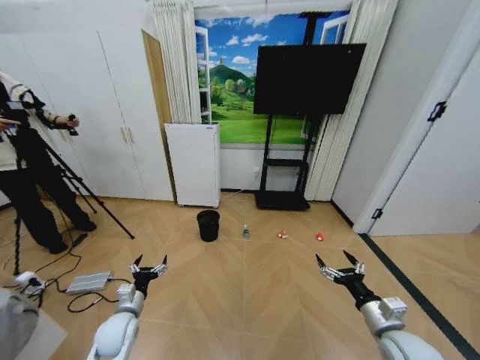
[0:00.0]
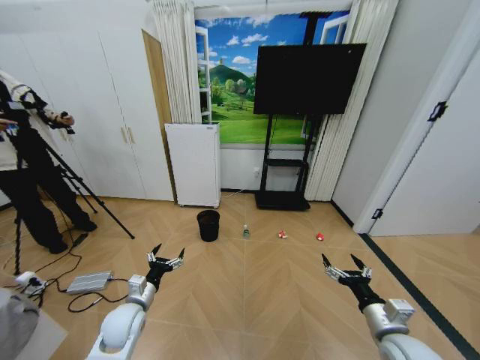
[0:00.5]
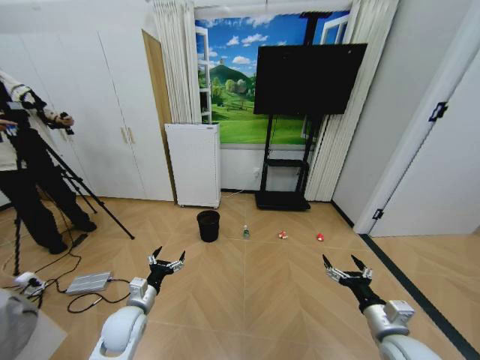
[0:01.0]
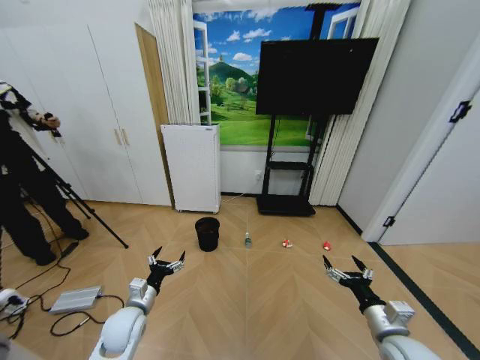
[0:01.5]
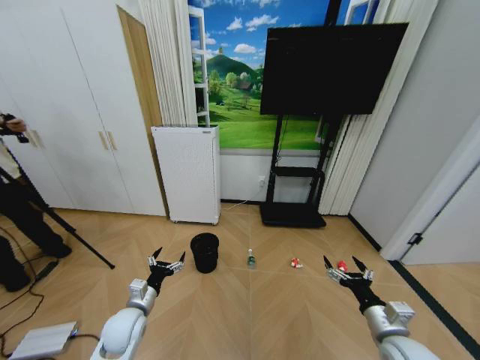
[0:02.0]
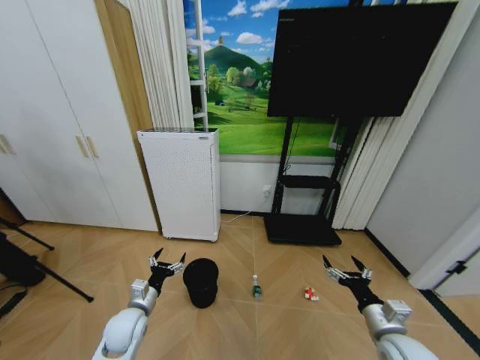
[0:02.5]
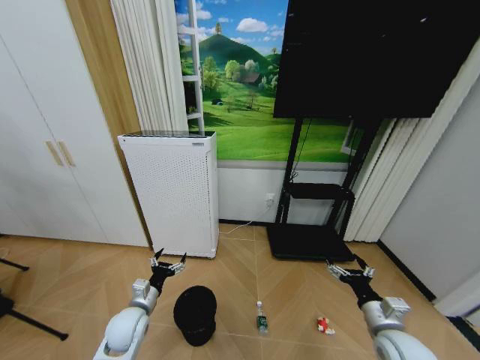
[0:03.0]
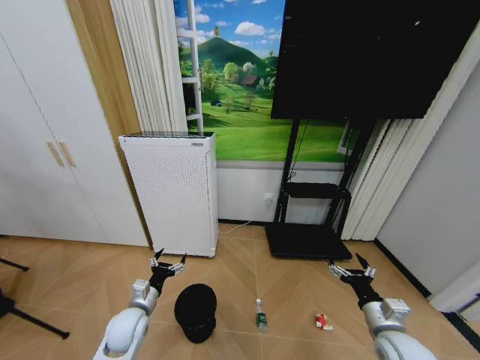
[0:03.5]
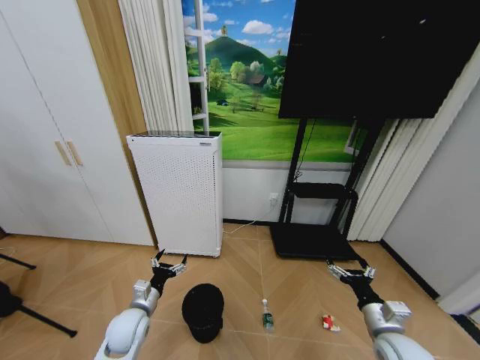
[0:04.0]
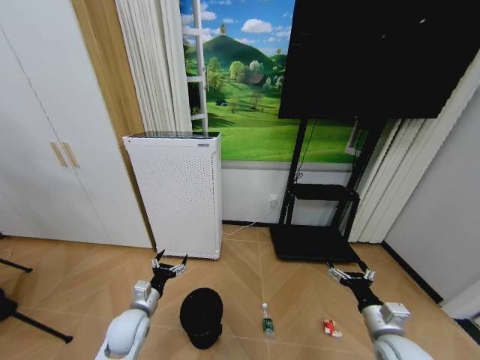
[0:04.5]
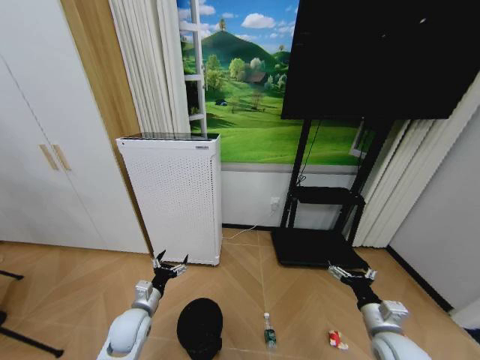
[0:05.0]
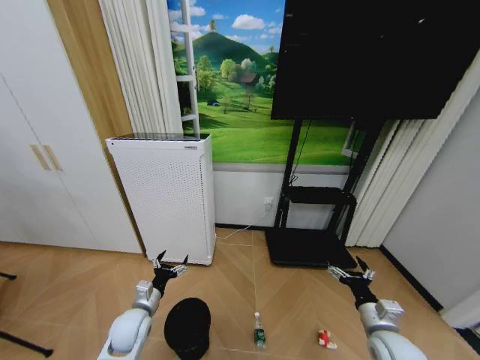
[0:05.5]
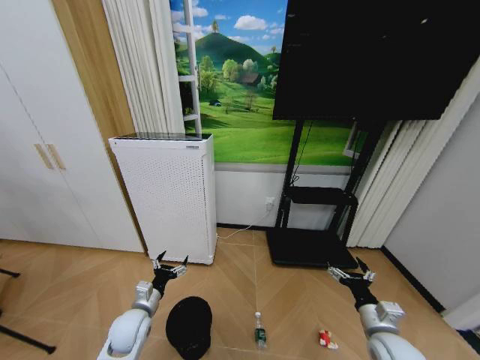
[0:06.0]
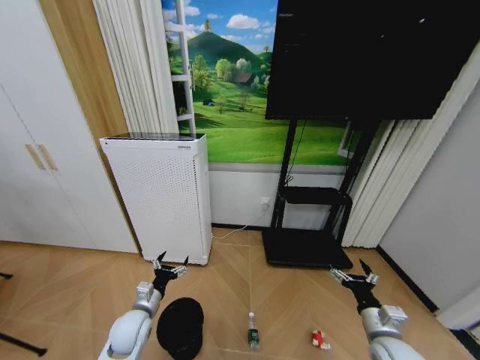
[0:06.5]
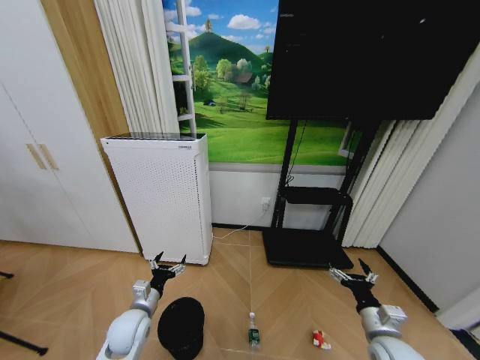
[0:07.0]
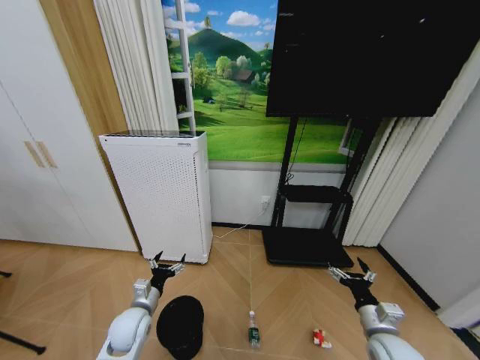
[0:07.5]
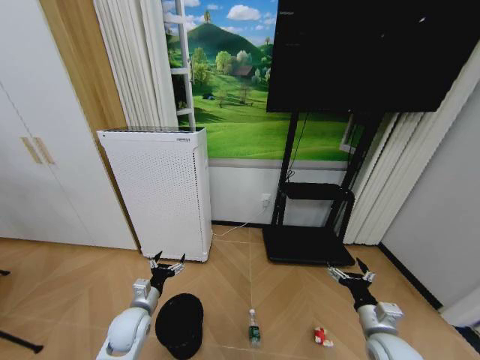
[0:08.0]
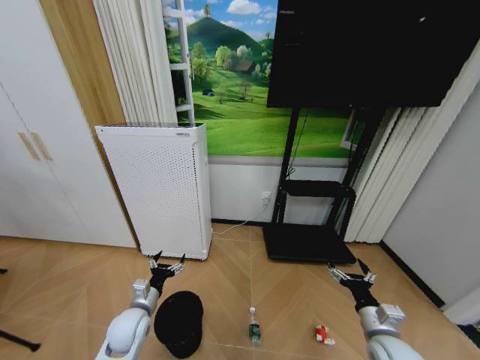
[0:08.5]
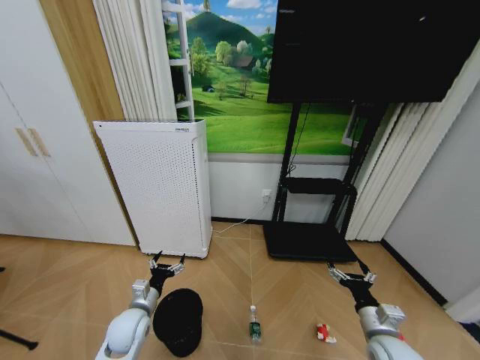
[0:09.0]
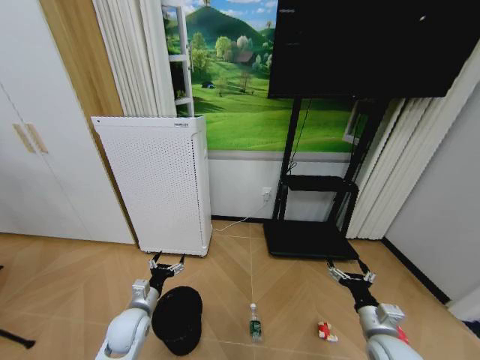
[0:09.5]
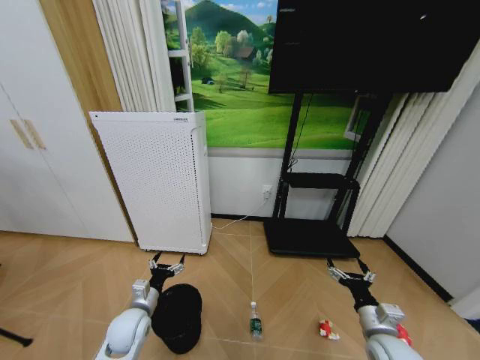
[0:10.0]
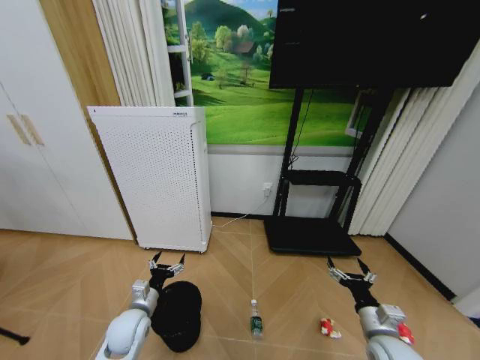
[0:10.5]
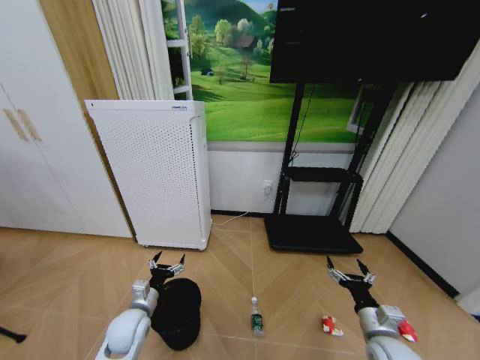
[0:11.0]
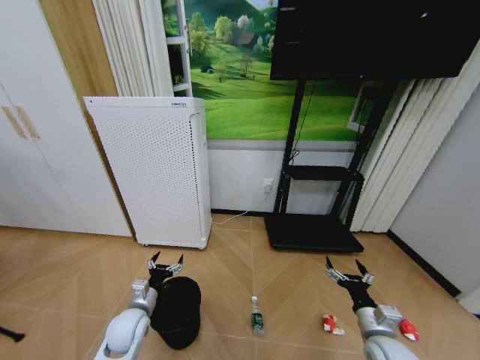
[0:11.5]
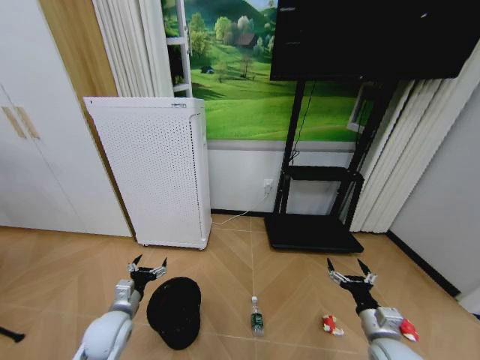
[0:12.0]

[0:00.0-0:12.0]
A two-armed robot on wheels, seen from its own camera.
Task of the whole recording: Pick up the trash bin and place the garbage on the floor into it.
0:06.0 to 0:10.0: Both grippers stay put.
0:10.0 to 0:12.0: The left gripper changes place by about 5 cm.

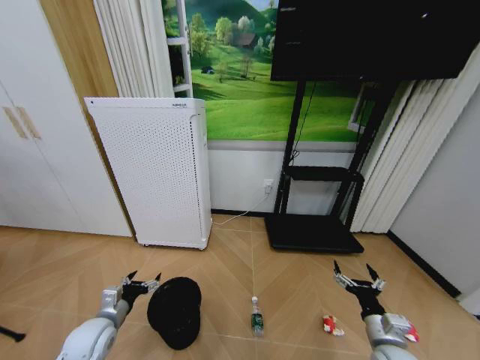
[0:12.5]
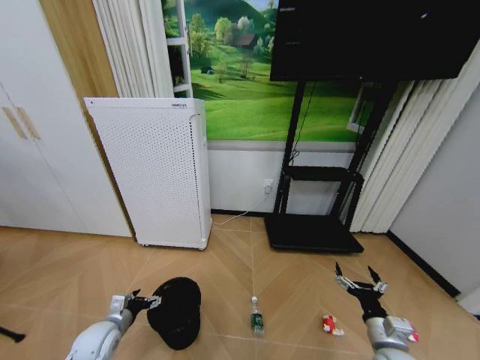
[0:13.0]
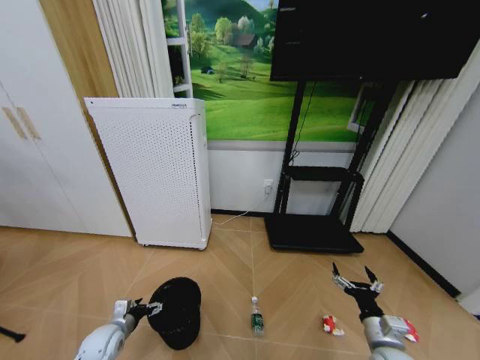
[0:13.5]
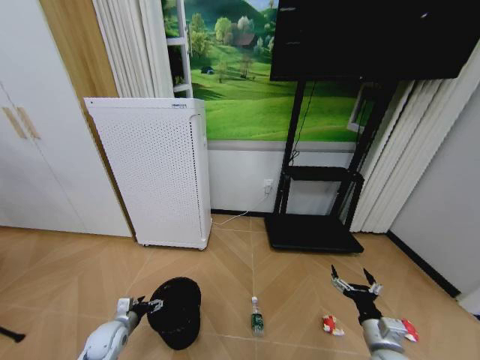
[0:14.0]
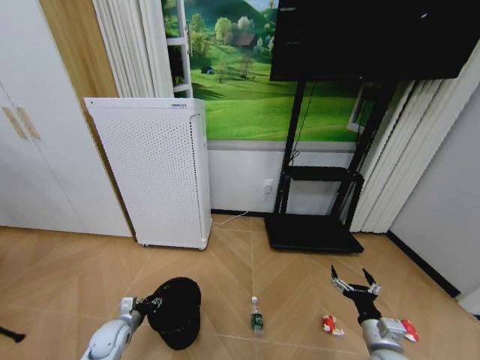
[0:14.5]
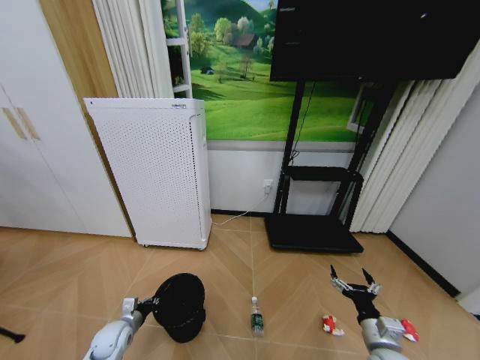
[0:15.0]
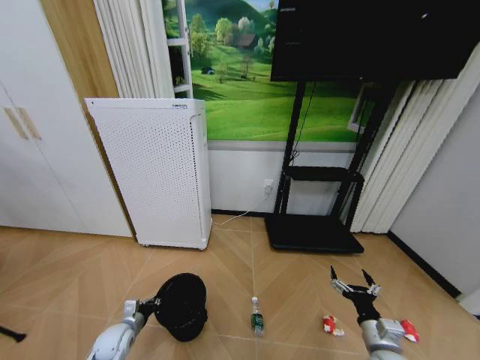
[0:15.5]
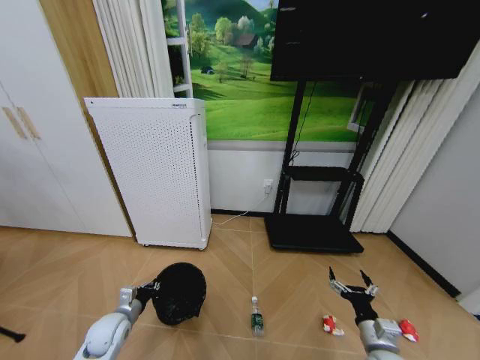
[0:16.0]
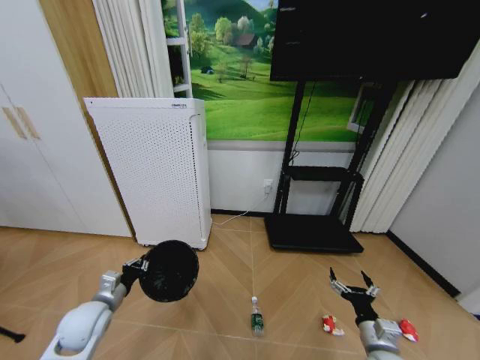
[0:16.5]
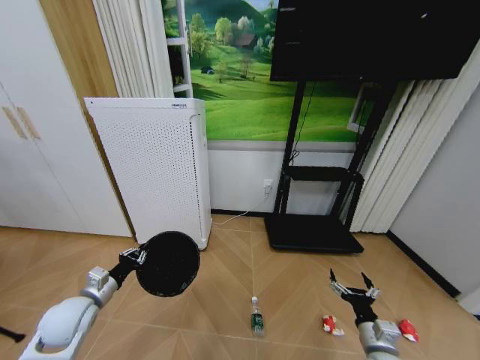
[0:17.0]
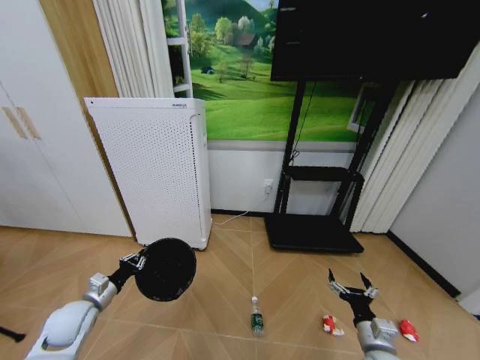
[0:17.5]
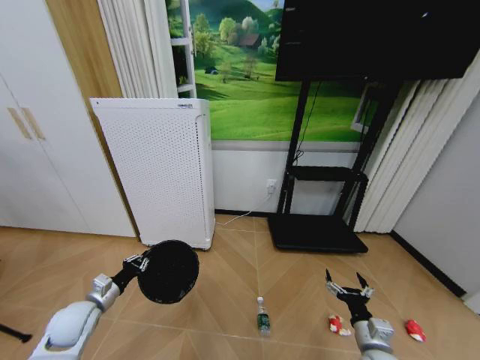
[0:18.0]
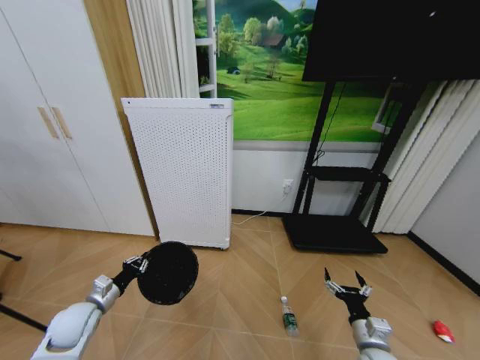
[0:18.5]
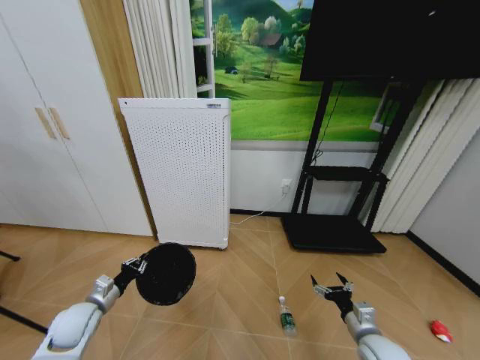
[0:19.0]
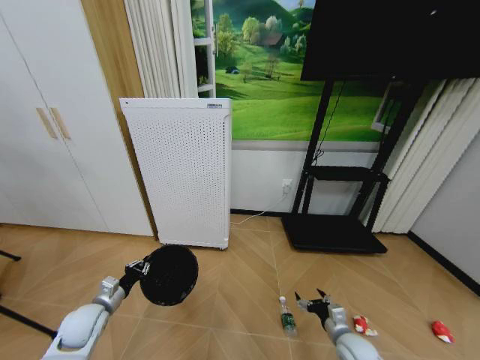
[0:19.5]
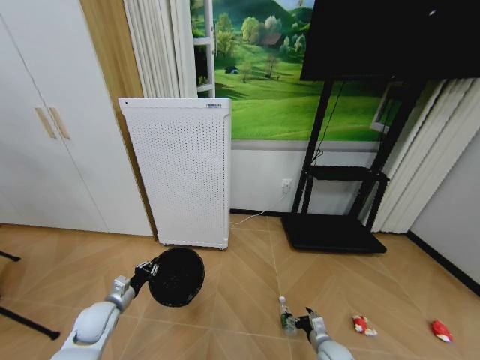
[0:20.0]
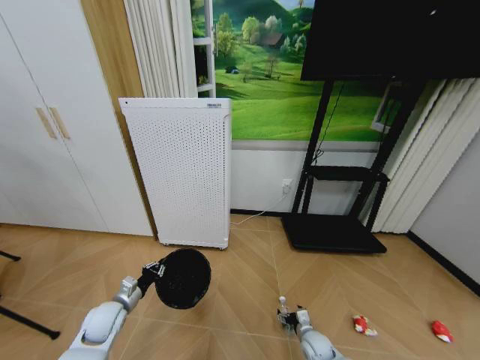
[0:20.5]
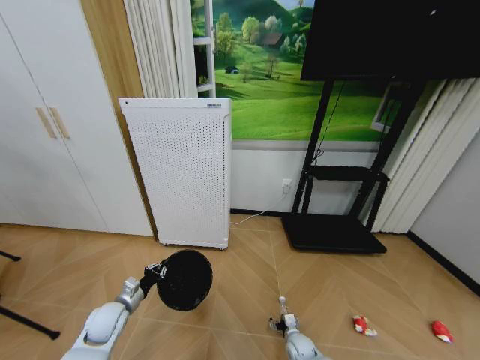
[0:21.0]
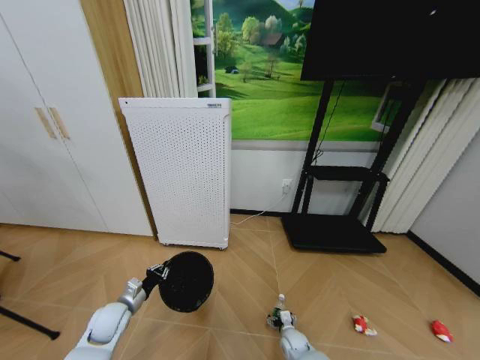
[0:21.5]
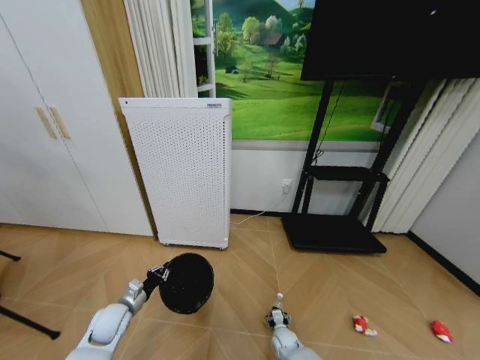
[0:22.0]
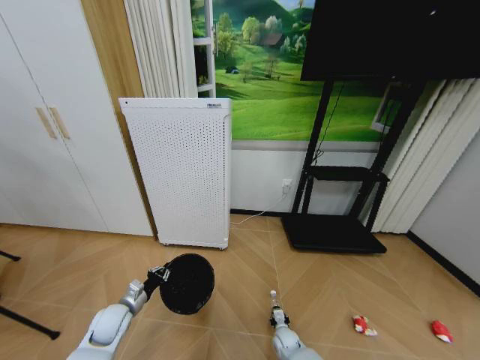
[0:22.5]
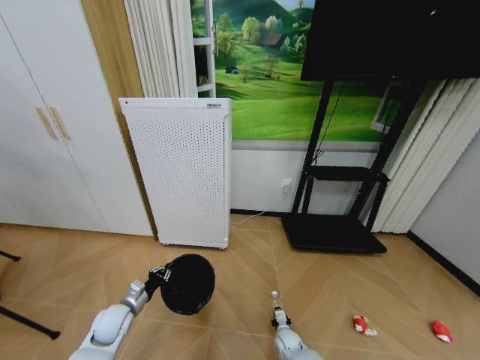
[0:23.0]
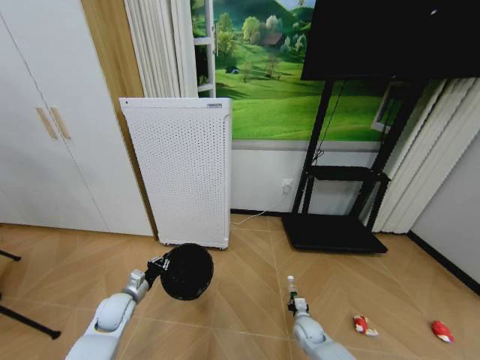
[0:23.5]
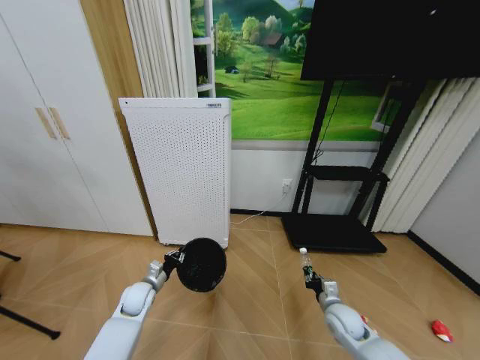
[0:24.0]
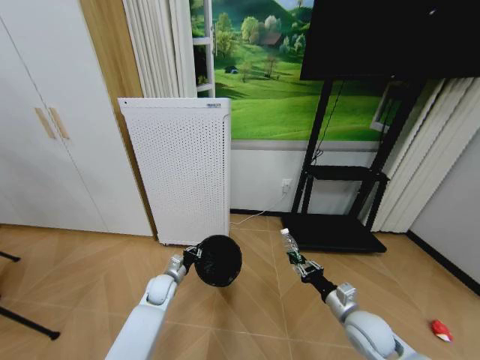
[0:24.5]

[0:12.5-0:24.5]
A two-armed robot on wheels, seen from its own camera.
Task of the whole recording: Pick up the trash bin and place the garbage on the floor into it.
0:12.5 to 0:14.5: The left gripper is displaced downward by some 10 cm, and closes.
0:14.5 to 0:16.5: The left gripper shifts about 15 cm upward, and closes.
0:16.5 to 0:18.5: The left gripper shifts by roughly 5 cm.
0:18.5 to 0:20.5: The left gripper moves some 5 cm, while the right gripper travels downward, forward and to the left by about 20 cm.
0:20.5 to 0:22.5: The right gripper shifts about 10 cm to the left and downward, and closes up.
0:22.5 to 0:24.5: The left gripper moves to the right and forward, some 15 cm. Meanwhile the right gripper travels upward and to the right by about 30 cm.

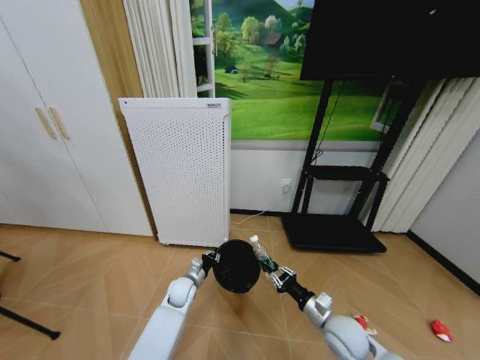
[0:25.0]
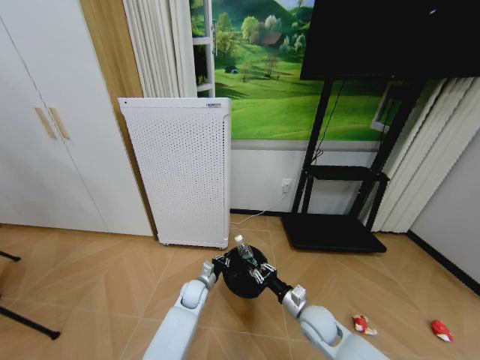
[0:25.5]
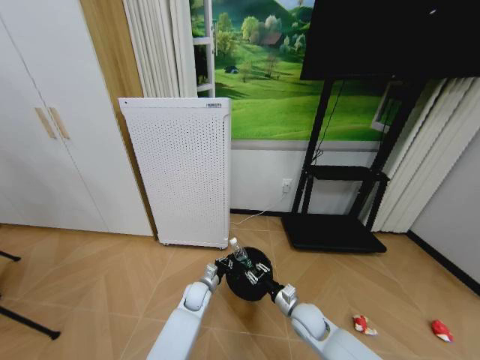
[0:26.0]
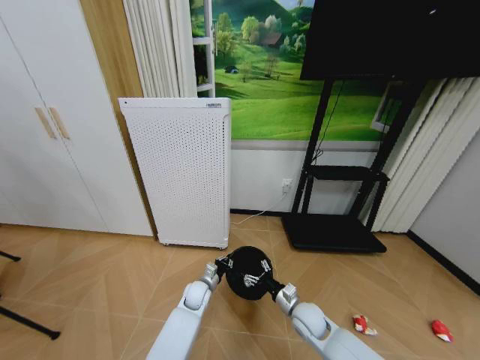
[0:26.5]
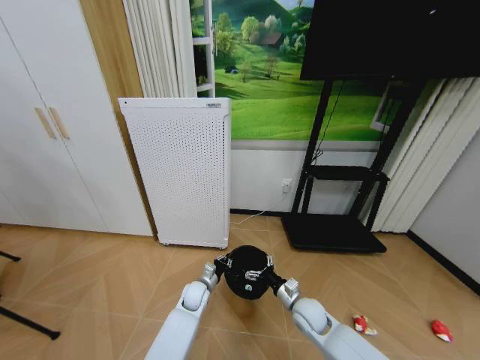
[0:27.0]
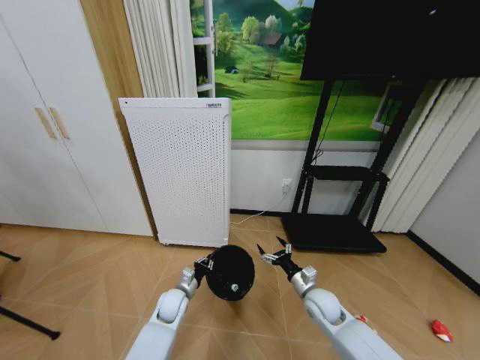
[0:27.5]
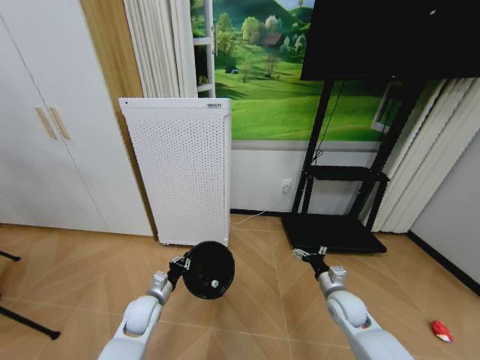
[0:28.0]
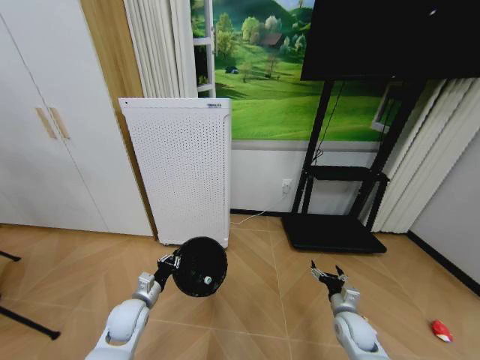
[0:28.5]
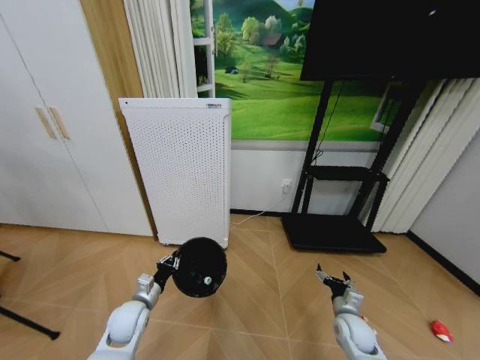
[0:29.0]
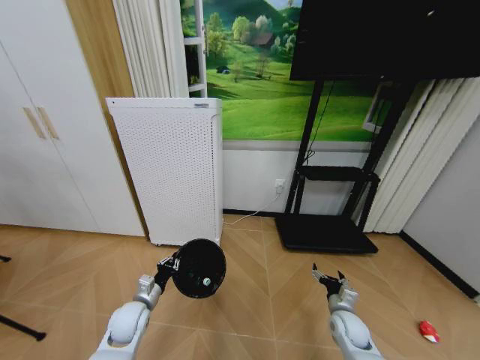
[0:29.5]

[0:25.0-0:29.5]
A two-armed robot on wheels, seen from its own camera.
Task of the whole recording: Pick up the trash bin and place the garbage on the floor into it.
0:25.0 to 0:27.0: The right gripper travels forward and to the left by roughly 10 cm, and opens.
0:27.0 to 0:29.5: The left gripper goes roughly 20 cm to the left, backward and upward; the right gripper shifts approximately 10 cm to the right.
